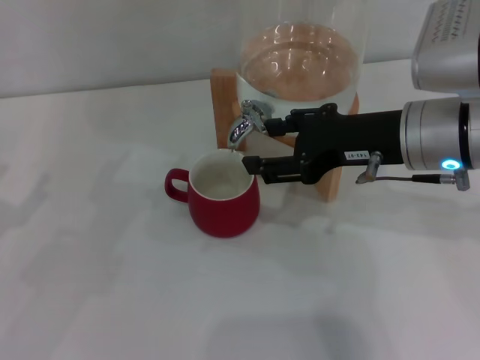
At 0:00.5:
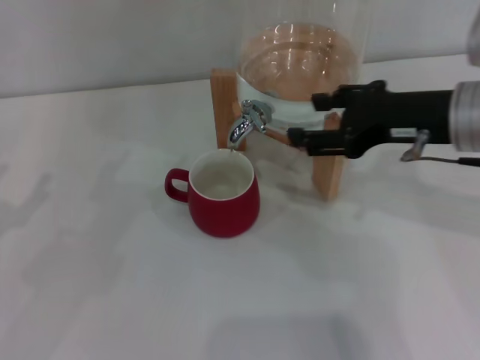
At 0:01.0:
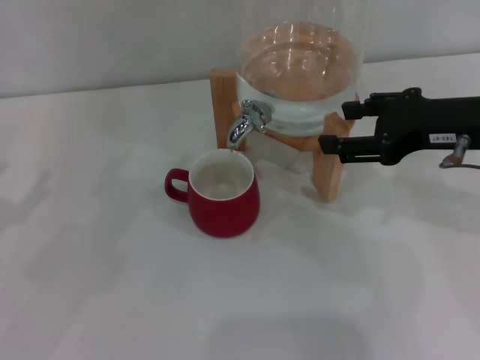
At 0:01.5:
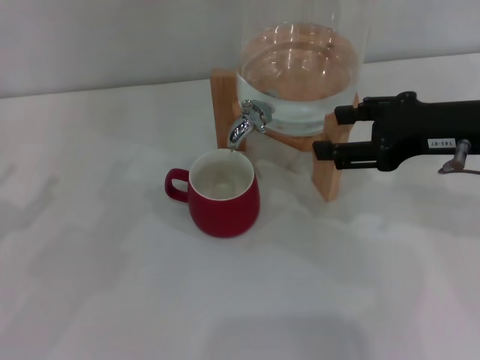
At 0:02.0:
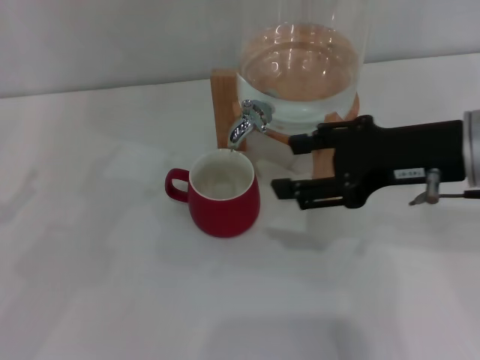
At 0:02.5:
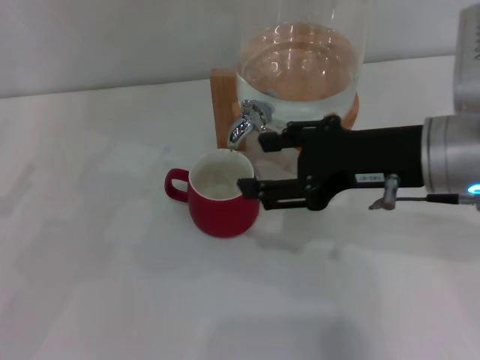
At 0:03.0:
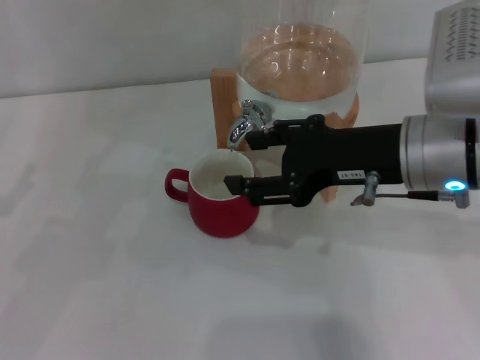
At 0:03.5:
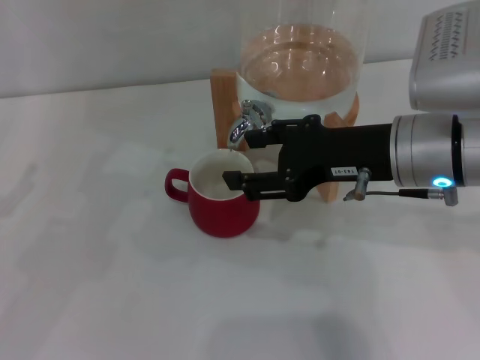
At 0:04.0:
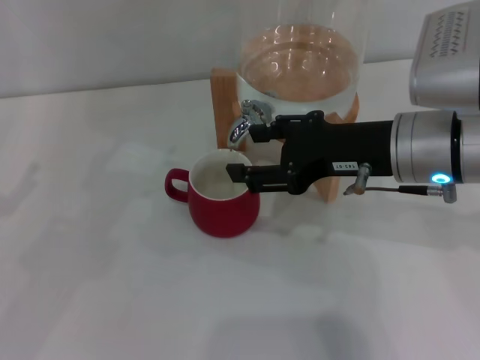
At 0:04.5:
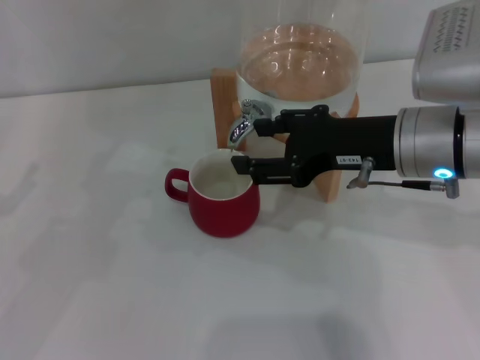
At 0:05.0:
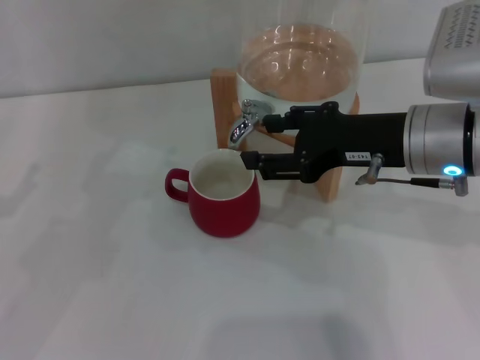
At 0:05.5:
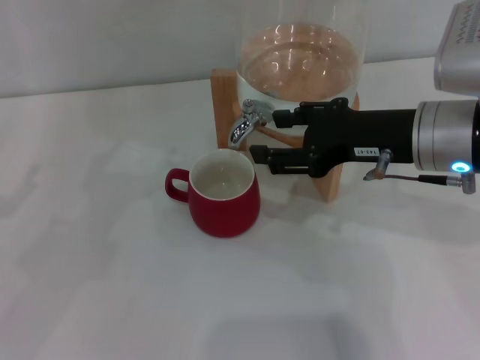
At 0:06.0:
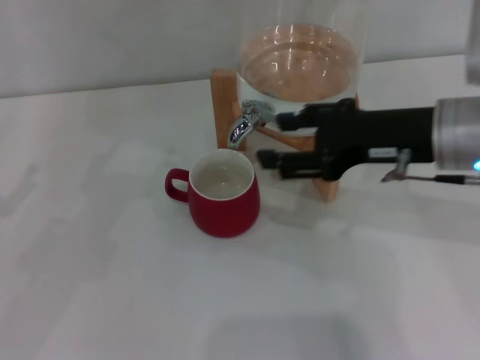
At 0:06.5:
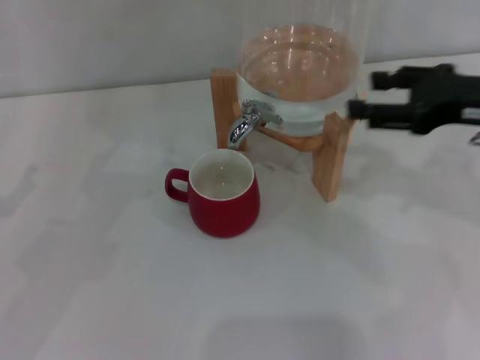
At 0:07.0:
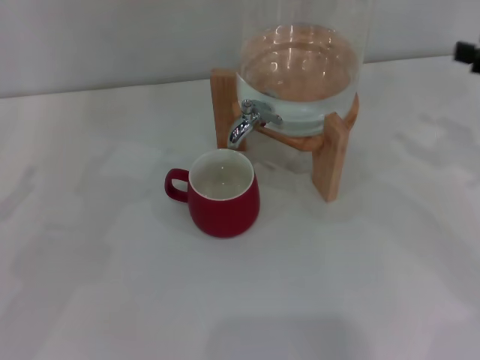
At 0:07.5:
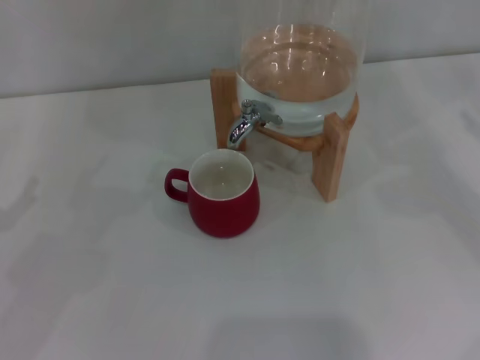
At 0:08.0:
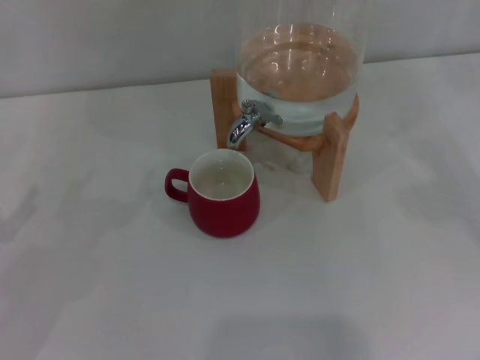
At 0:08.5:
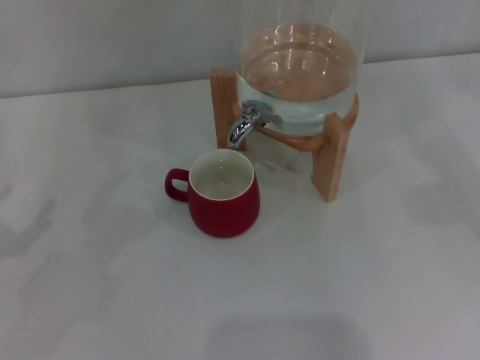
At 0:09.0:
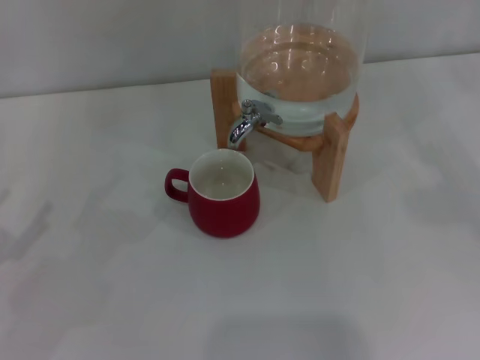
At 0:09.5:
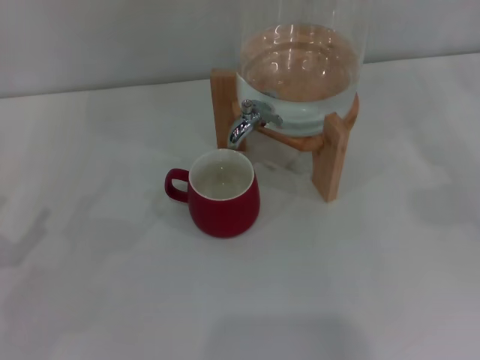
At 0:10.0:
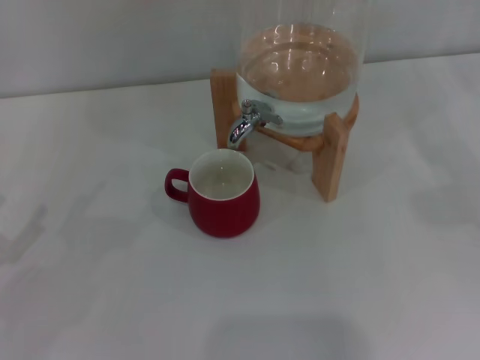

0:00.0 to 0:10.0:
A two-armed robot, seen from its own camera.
Task of the whole recording: the left gripper pick up the red cup and place it horizontally under the faucet, the right gripper turn on the faucet to fill the cup, and then turn off the faucet.
Step, 0:00.0 to 0:03.0: Open the dispenser valve and fill the cup with water with the right gripper.
Step, 0:03.5 to 0:06.0: Close the dispenser valve with the right gripper.
0:02.0 to 0:04.0: The right gripper changes place by approximately 5 cm.
0:04.0 to 0:06.0: The grippers move only a little.
0:06.0 to 0:08.0: The right gripper moves to the right, roughly 25 cm.
